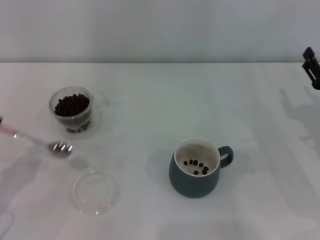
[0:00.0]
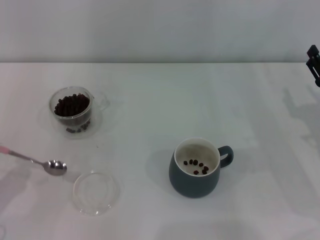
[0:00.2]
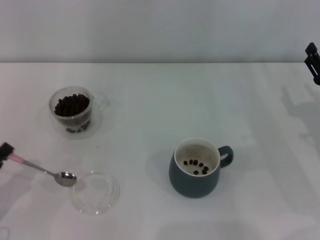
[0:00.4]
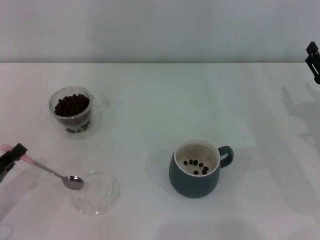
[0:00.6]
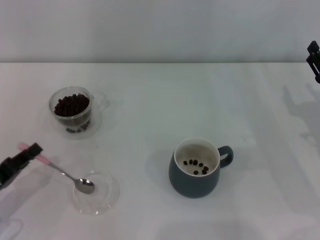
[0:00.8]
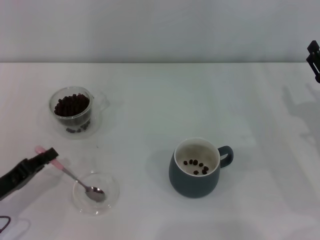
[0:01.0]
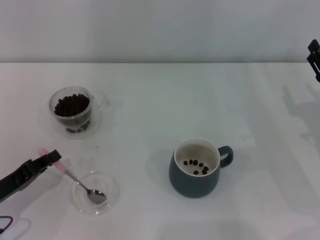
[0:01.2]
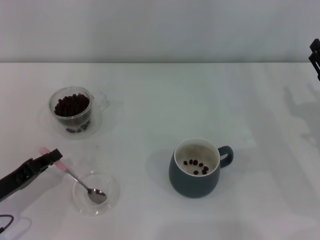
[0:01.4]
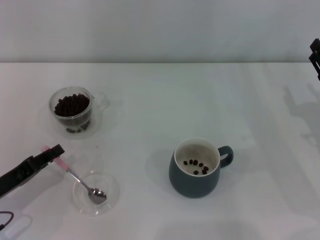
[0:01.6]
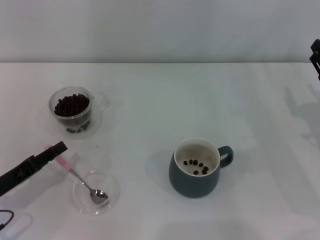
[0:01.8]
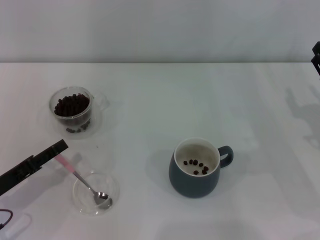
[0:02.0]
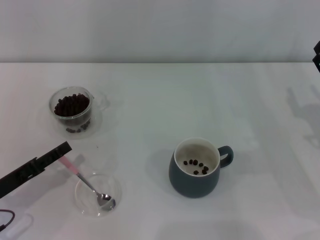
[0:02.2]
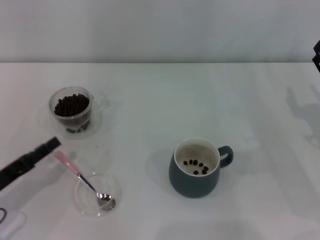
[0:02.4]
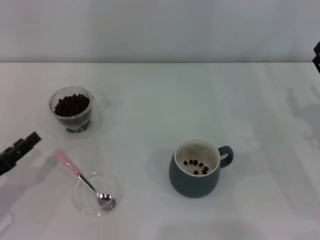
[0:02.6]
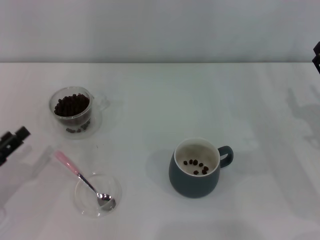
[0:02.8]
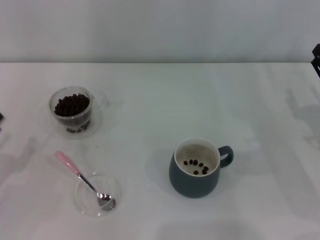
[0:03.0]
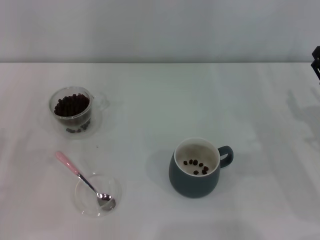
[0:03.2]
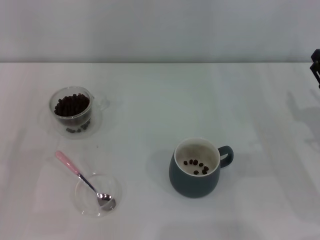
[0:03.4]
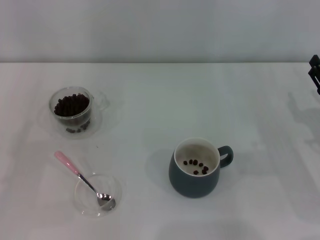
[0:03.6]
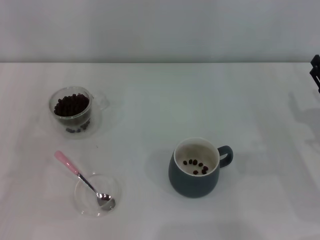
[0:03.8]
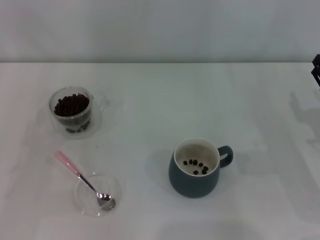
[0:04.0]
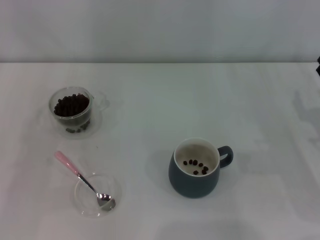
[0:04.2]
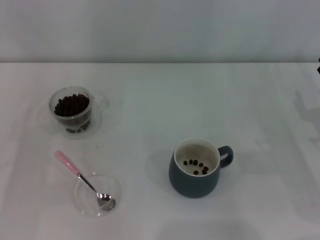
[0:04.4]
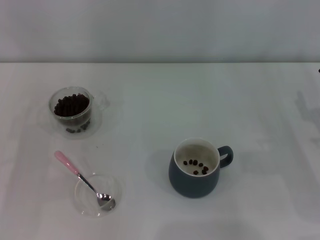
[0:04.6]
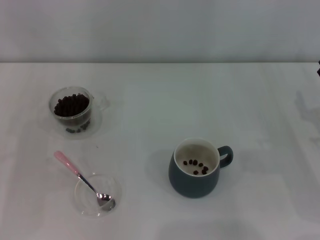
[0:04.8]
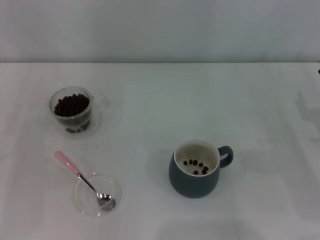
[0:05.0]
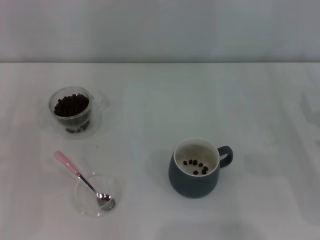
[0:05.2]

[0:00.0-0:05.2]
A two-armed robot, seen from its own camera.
Task of the whole recording: Use a pink spoon to take out the coffee beans from the glass and pour them into the gray cup.
Step, 0:00.0 to 0:02.2: Place the spoon back in its original place with the right gripper.
0:00.0 to 0:01.8: The left gripper shifts by roughly 5 cm.
0:01.8 to 0:03.4: The left gripper goes approximately 5 cm to the left, and opens its fingers.

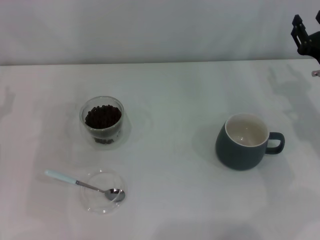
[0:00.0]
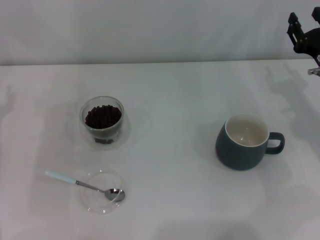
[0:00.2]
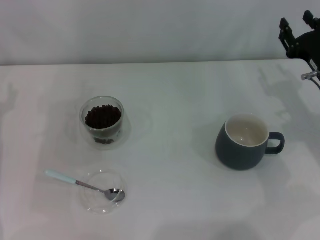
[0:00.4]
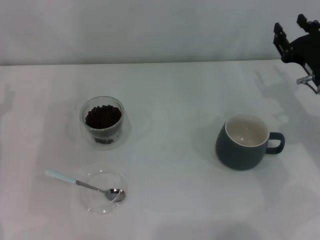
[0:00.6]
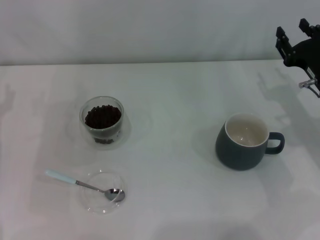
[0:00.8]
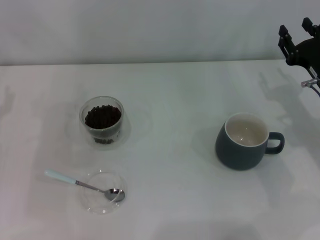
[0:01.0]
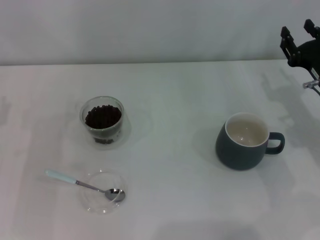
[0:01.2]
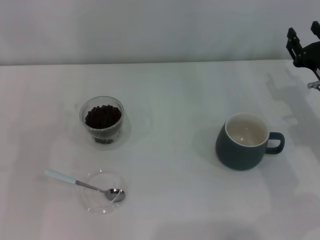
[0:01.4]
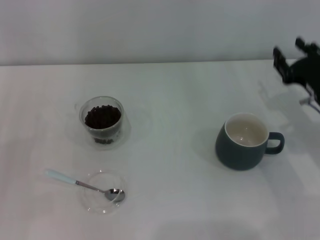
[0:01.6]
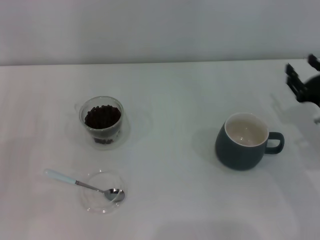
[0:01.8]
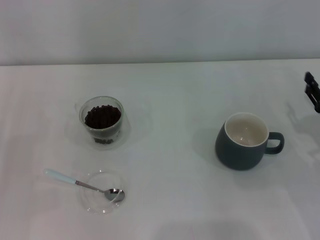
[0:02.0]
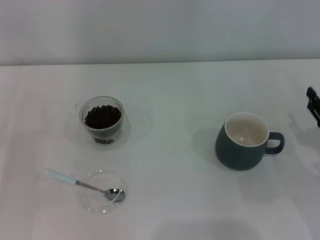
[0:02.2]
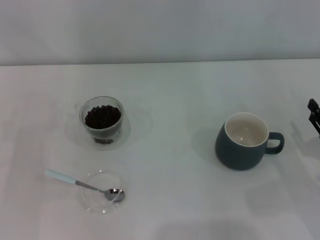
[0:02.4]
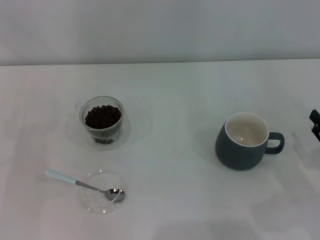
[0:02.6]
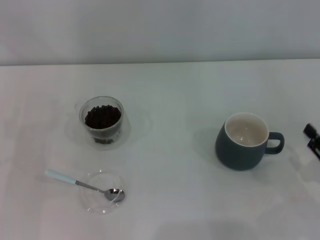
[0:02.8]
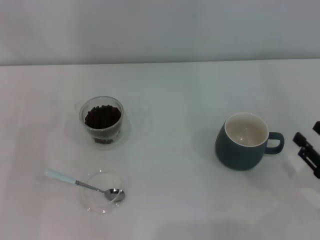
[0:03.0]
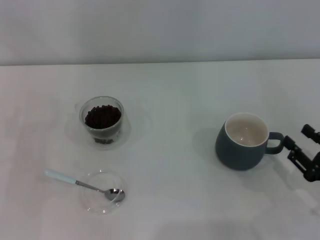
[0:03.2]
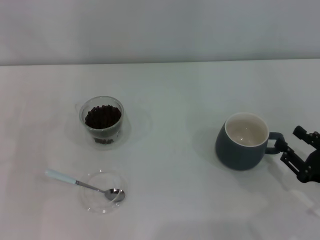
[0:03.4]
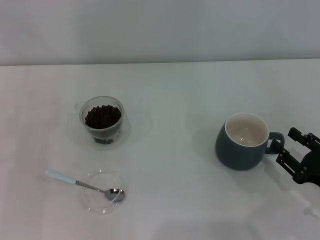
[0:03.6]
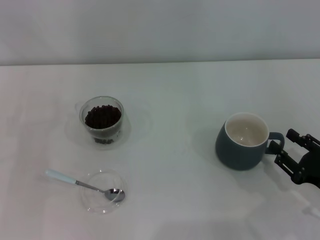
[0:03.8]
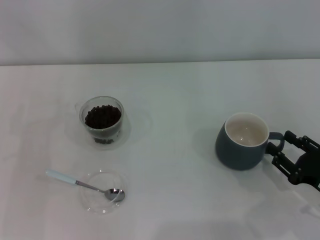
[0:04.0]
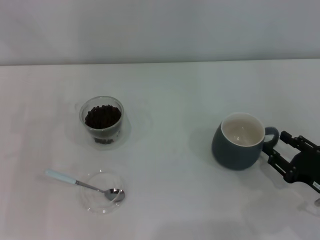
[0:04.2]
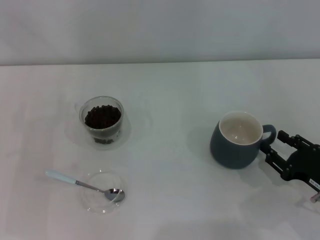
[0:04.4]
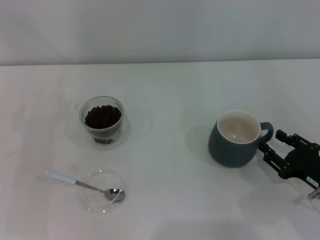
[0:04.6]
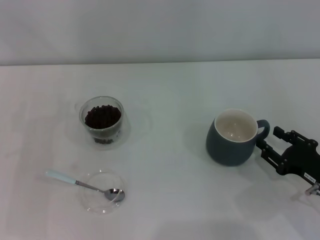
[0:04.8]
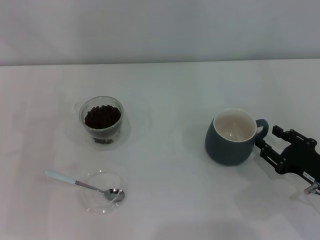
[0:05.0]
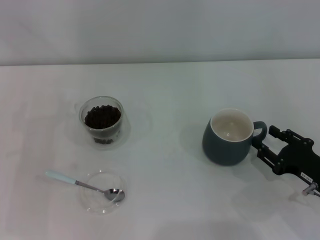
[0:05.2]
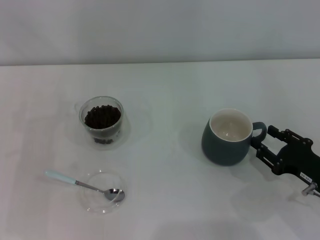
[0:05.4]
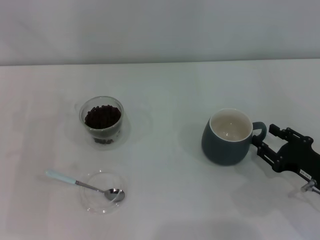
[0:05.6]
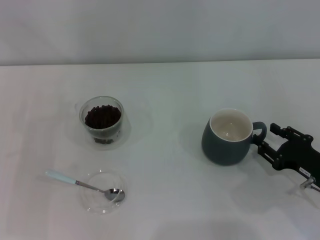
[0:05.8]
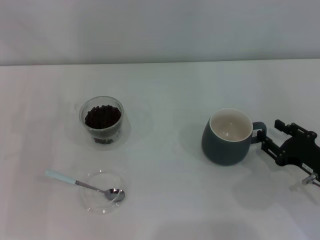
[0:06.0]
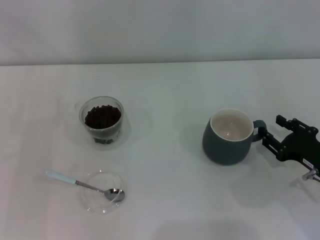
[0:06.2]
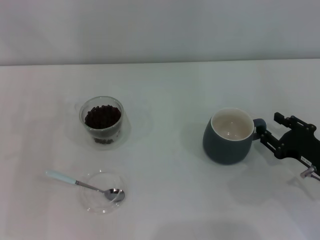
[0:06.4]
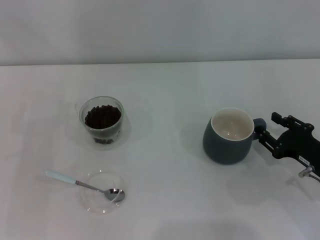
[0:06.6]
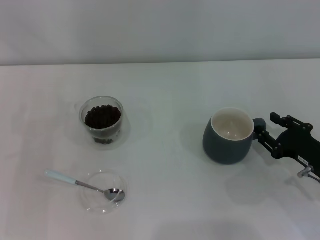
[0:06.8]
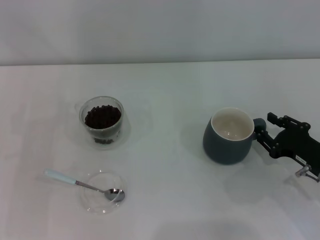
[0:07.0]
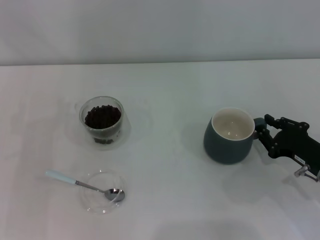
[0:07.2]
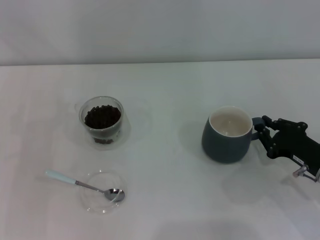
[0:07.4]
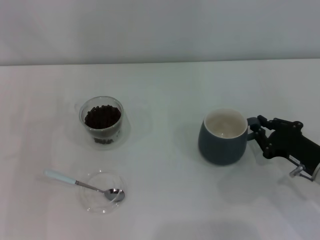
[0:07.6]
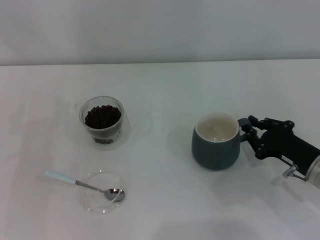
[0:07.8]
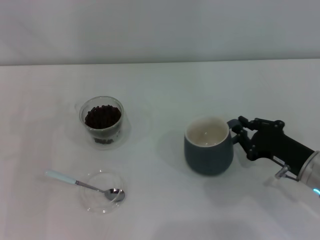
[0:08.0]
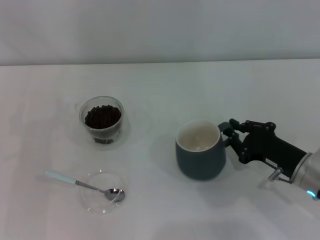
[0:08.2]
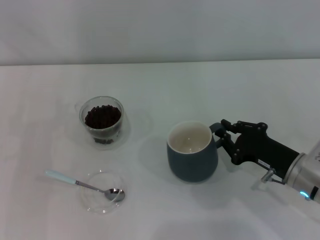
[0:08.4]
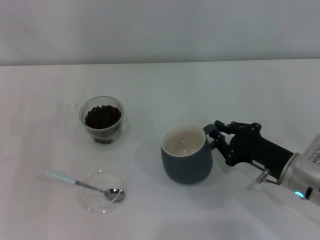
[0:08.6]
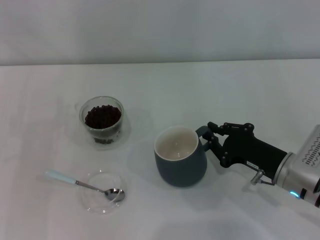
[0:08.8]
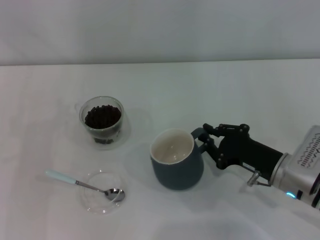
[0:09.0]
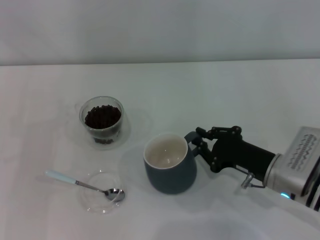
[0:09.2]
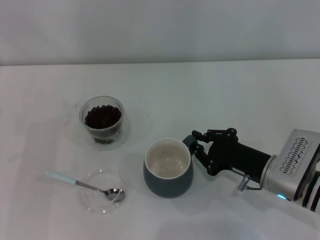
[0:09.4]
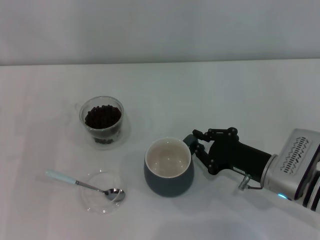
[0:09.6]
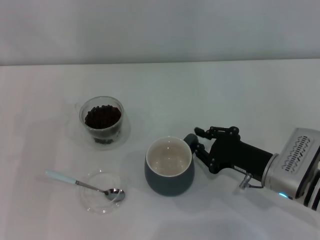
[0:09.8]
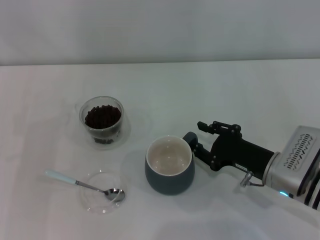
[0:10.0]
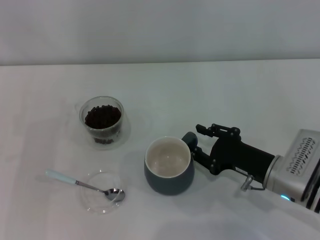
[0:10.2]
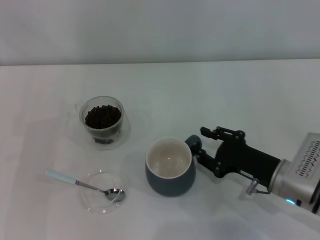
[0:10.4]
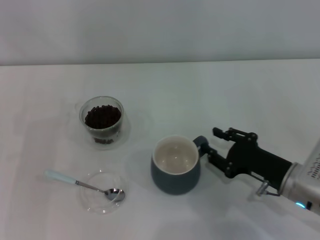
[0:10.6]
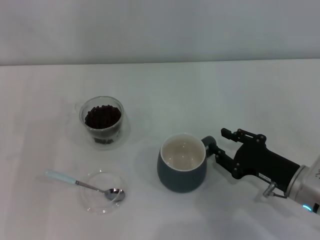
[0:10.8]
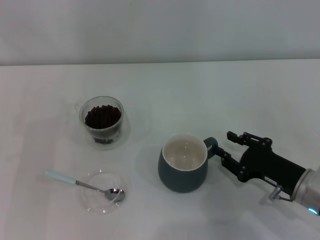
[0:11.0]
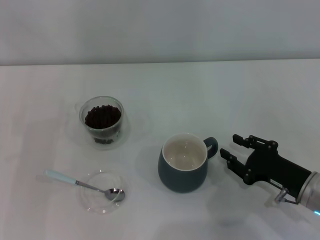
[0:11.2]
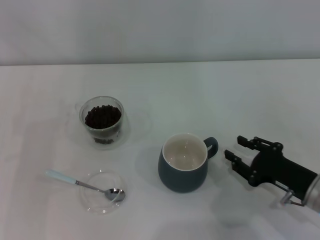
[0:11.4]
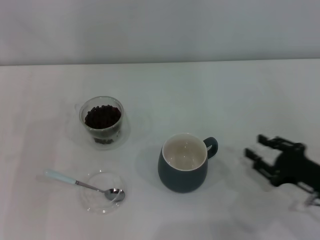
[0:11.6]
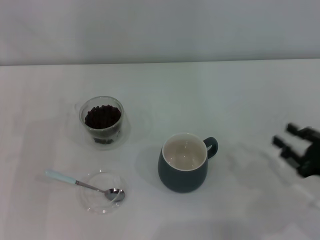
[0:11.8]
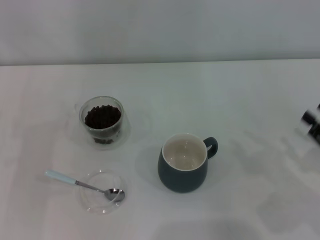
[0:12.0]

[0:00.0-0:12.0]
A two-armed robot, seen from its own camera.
Task of the whole recording: Use a blue spoon to take out the coffee beans from the glass and pour them into the gray cup.
Step, 0:00.0 to 0:11.6: Move the cup to the center of view with the left gripper.
0:01.6 to 0:03.0: The right gripper is displaced backward by roughly 15 cm.
0:03.0 to 0:04.4: The grippers move only a little.
0:04.4 to 0:06.0: The grippers move only a little.
0:06.0 to 0:07.6: The right gripper closes its fingers.
0:07.6 to 0:09.0: The right gripper shifts about 5 cm to the left.
0:09.0 to 0:10.4: The right gripper opens up.
0:10.4 to 0:12.0: The right gripper travels to the right and backward by roughly 15 cm.

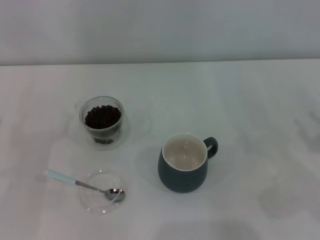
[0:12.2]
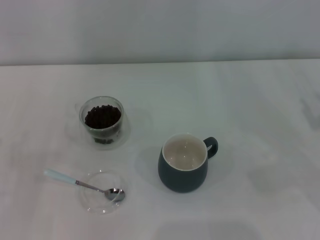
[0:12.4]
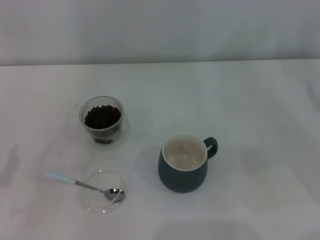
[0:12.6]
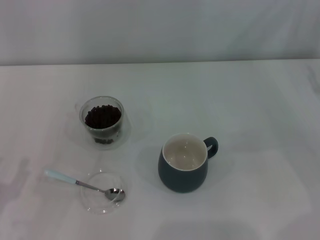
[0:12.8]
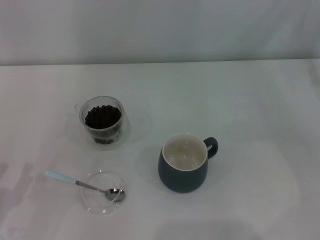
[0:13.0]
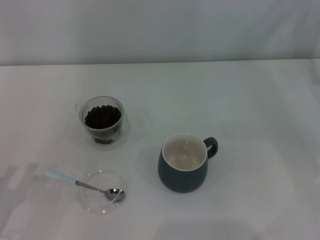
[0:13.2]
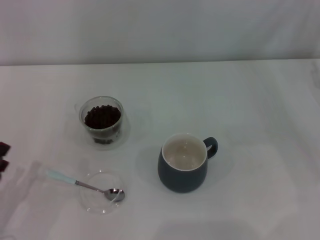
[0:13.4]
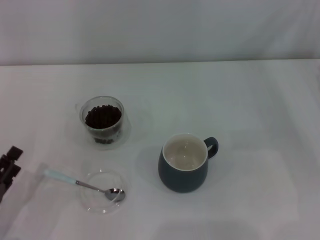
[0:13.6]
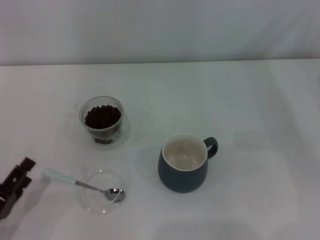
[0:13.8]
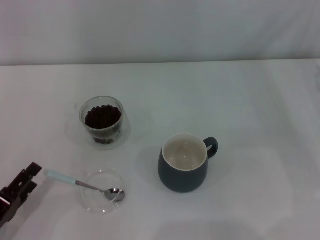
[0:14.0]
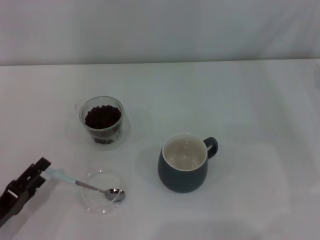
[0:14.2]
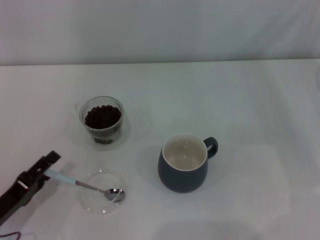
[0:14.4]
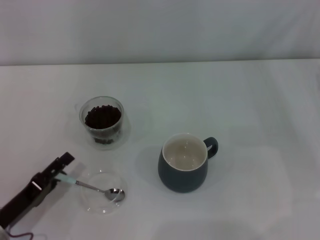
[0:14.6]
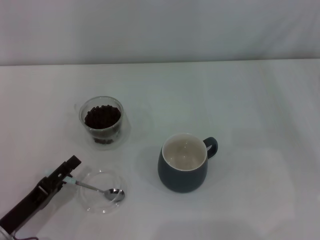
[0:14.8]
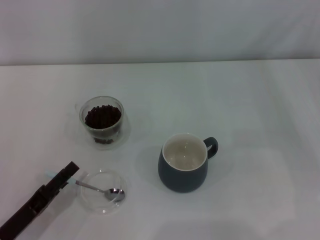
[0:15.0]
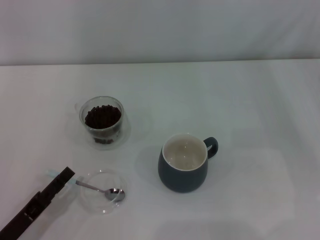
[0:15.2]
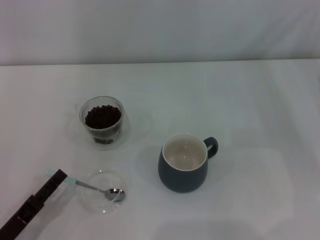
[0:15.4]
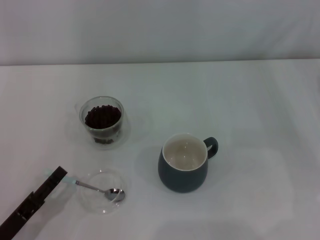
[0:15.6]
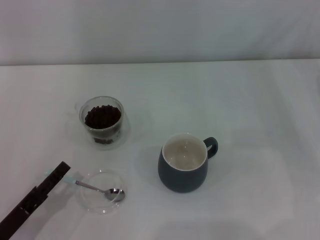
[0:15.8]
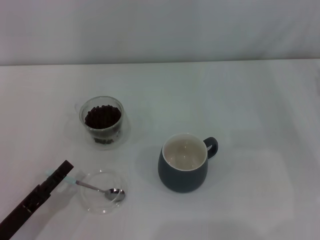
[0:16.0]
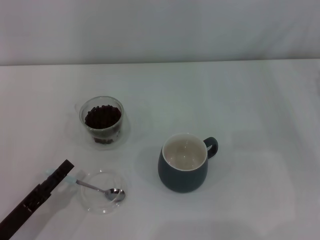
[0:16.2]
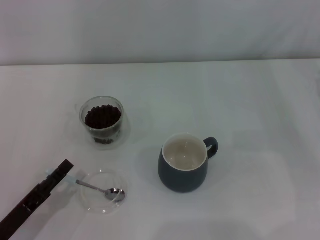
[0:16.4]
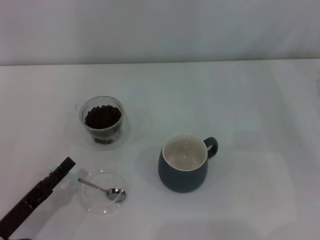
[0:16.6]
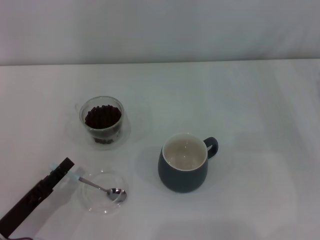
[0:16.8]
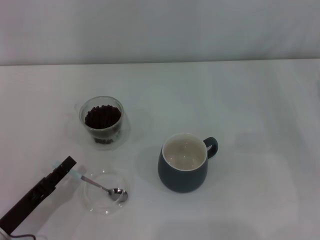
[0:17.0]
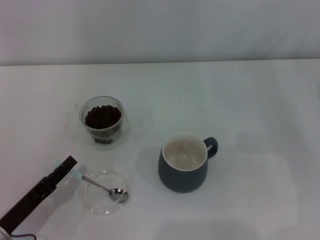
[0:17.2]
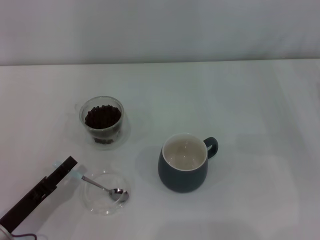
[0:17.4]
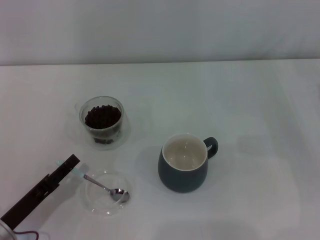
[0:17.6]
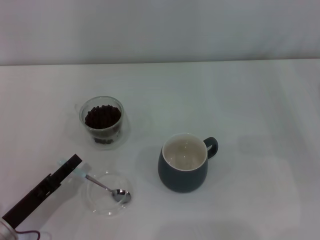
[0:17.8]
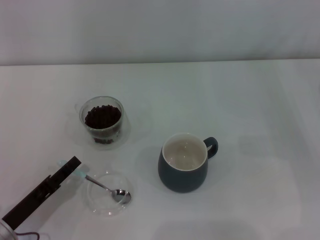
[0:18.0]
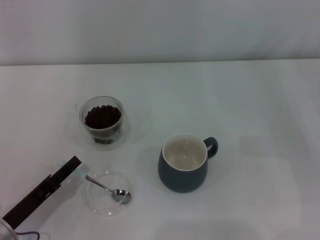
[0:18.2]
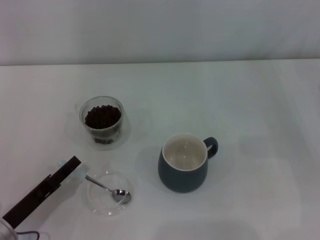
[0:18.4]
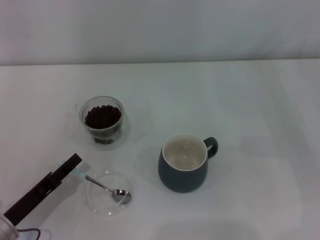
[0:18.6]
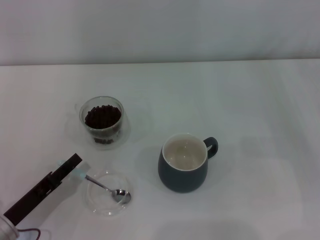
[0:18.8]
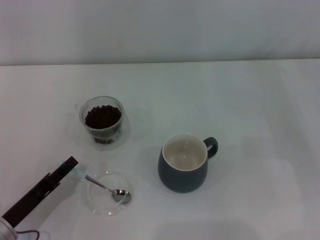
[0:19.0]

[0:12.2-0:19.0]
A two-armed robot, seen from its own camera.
Task of the whole recording: Use a blue spoon to take out the coffee beans from the glass and pour them into the gray cup.
0:12.2 to 0:13.6: The left gripper heads backward and downward, covering about 10 cm.
0:13.6 to 0:17.6: There are only small adjustments of the grippers.
0:17.6 to 0:19.0: The two grippers keep their place.
